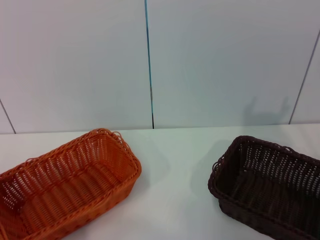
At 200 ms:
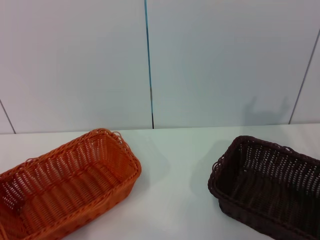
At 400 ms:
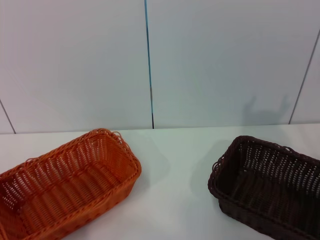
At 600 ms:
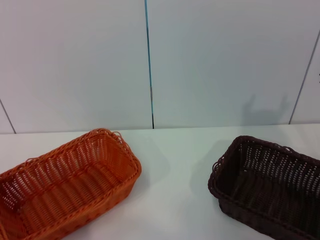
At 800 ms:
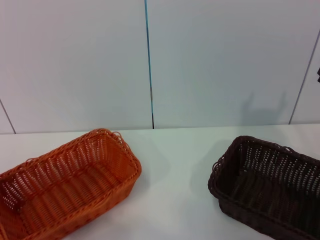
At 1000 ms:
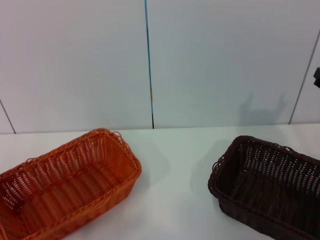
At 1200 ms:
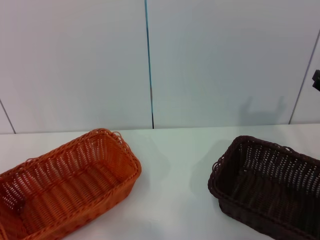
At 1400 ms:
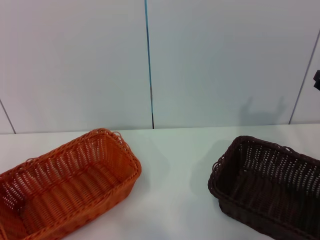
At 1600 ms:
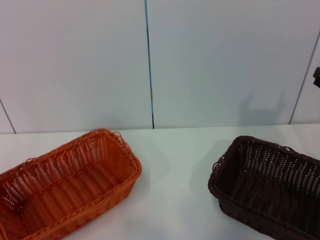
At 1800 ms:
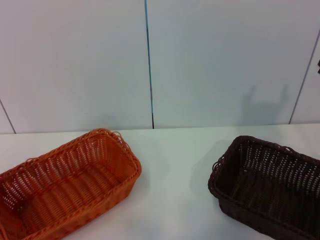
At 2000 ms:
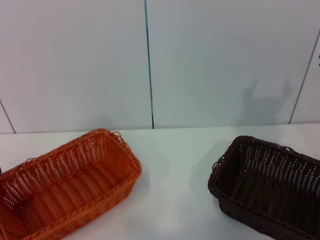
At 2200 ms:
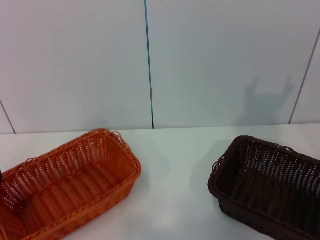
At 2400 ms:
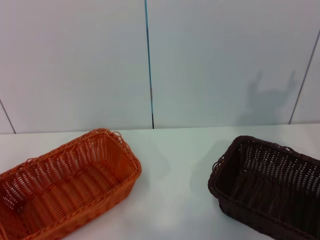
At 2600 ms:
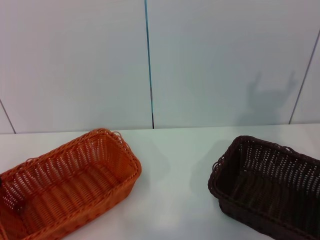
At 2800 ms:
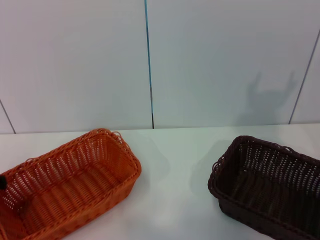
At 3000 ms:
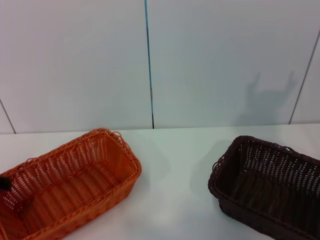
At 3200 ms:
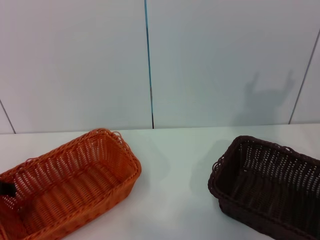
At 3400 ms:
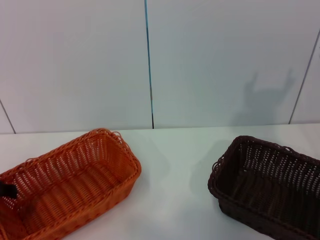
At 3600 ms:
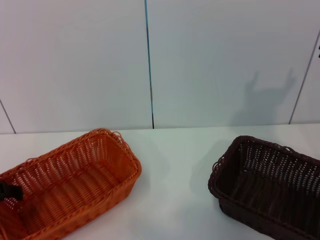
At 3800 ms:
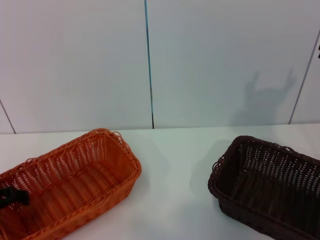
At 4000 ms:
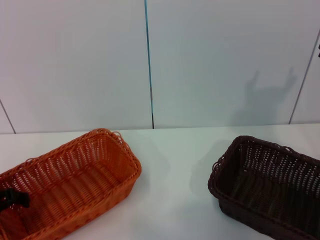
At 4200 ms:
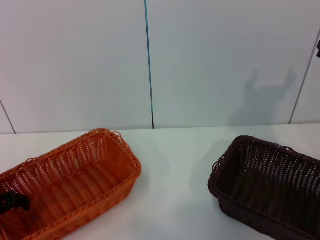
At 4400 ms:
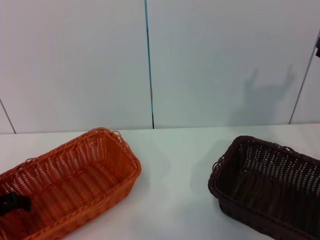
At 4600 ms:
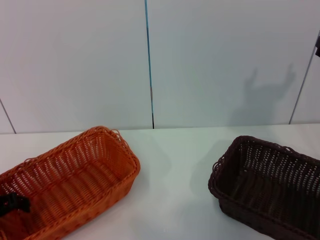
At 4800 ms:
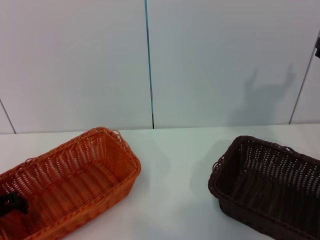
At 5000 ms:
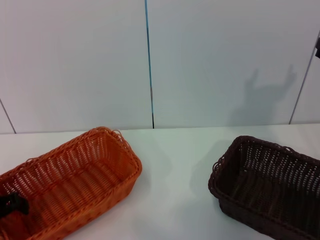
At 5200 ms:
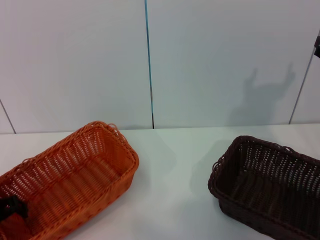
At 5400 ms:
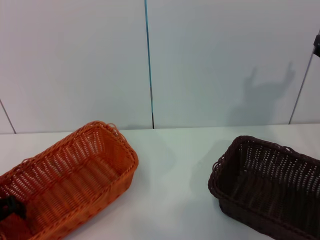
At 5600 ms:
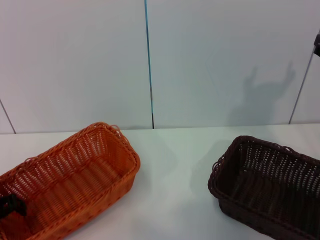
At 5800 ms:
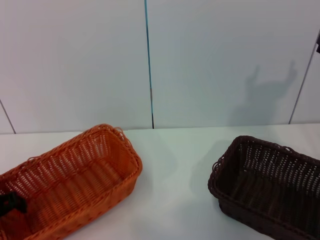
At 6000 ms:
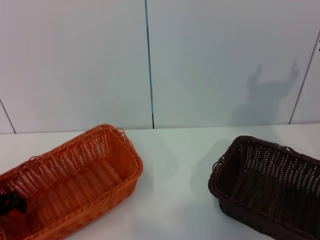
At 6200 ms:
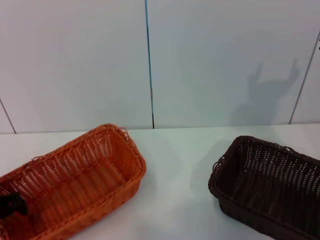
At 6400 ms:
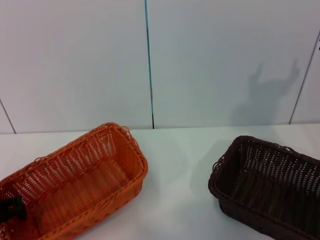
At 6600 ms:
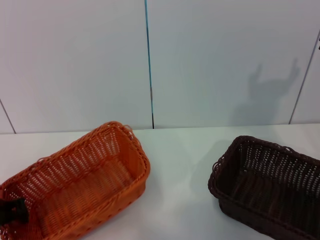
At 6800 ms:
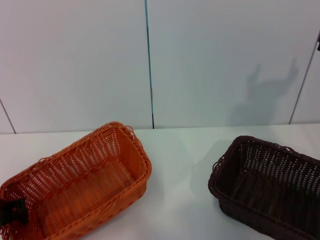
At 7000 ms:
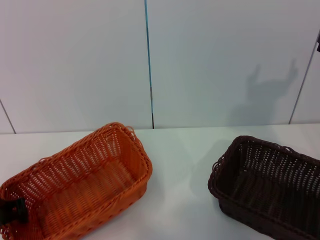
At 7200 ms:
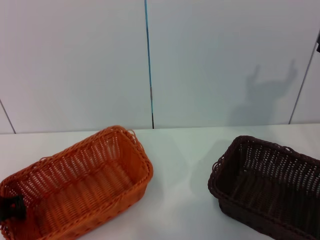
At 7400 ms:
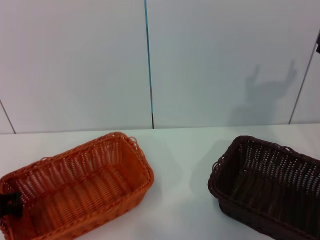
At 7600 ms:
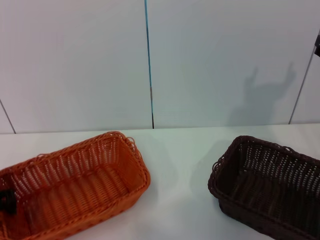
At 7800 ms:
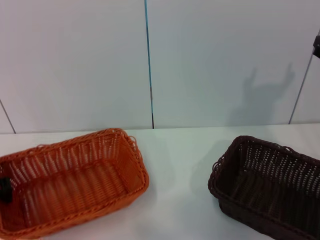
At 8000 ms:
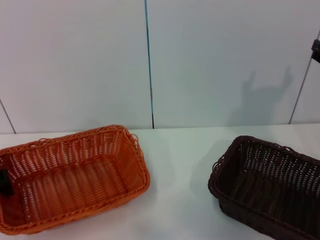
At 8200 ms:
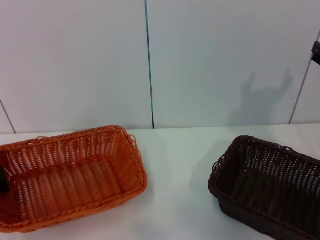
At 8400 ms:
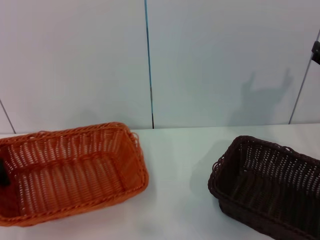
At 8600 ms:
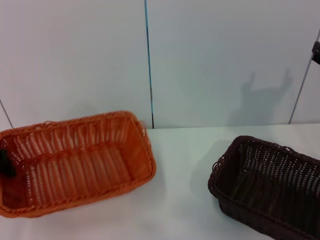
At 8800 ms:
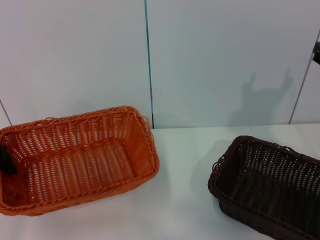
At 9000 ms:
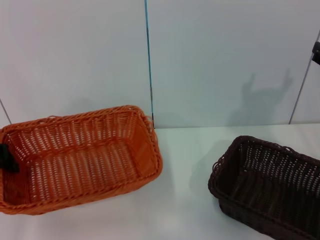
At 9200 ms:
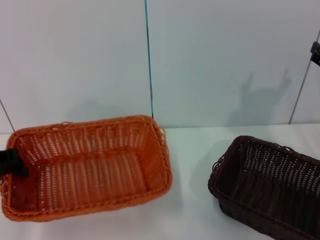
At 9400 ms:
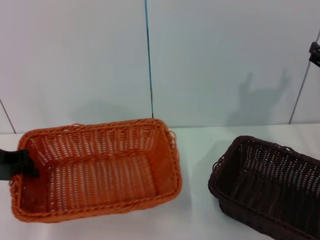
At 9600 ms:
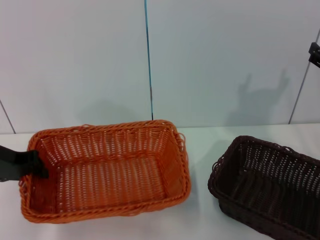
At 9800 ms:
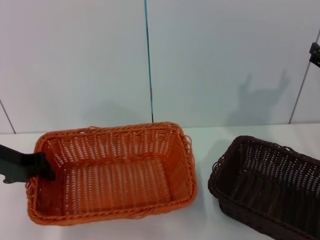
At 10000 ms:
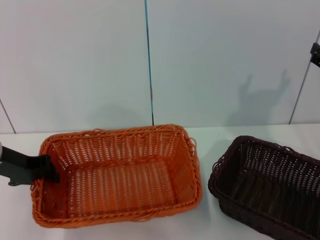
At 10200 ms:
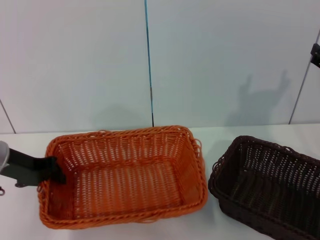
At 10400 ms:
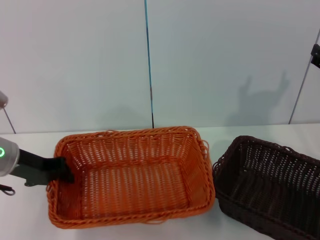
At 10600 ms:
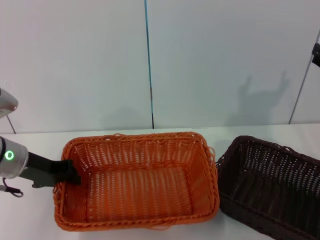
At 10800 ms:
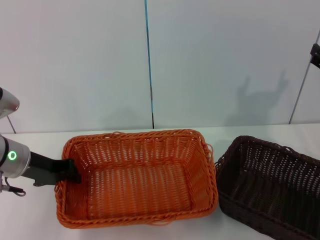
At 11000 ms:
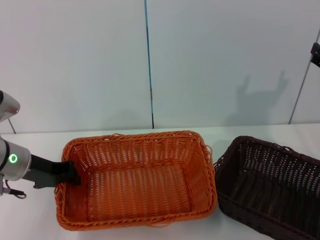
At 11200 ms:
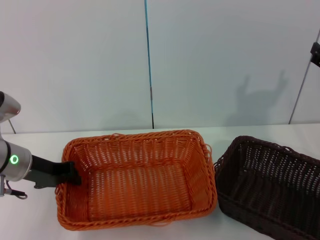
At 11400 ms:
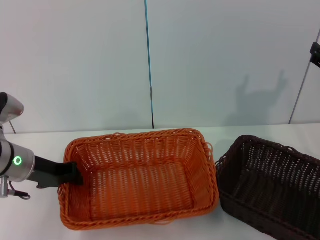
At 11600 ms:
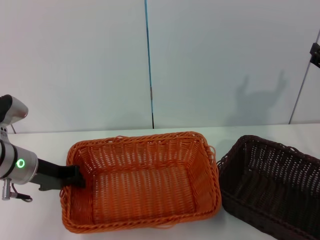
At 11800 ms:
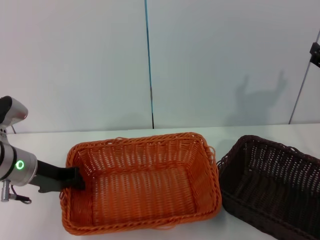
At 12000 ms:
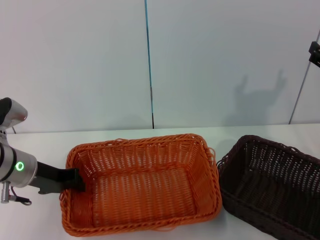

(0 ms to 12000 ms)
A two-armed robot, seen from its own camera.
Step, 0 ms - 5400 ms: Pick up the light basket with the left gripper.
4400 ms - 6000 ms: The left gripper closes.
6000 ms - 7600 ms: The left gripper closes up.
7600 ms - 9000 ms: The left gripper goes approximately 5 cm upward.
9000 ms - 10400 ms: The left gripper heads to the right, covering roughly 10 cm.
10400 ms - 12000 ms: The grippers make only small movements.

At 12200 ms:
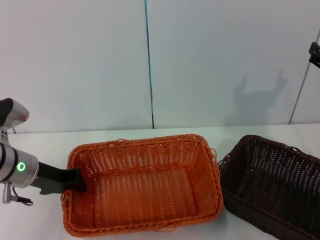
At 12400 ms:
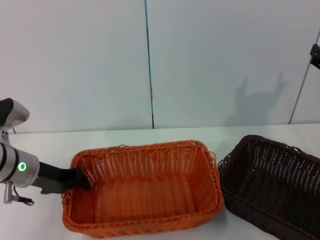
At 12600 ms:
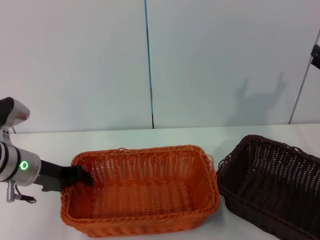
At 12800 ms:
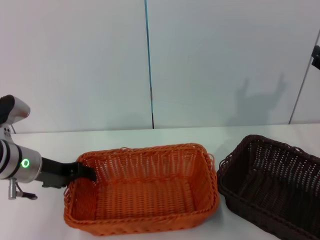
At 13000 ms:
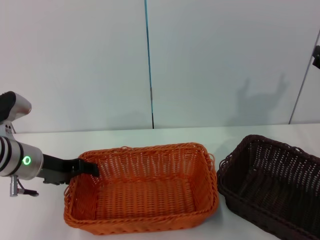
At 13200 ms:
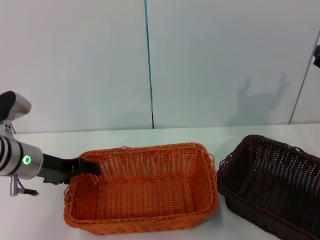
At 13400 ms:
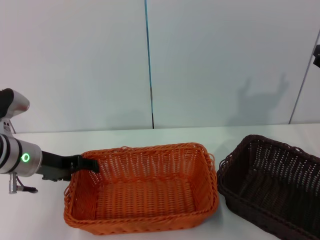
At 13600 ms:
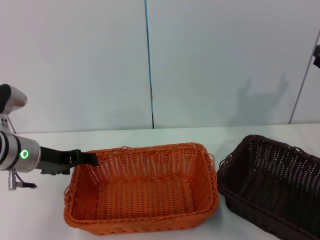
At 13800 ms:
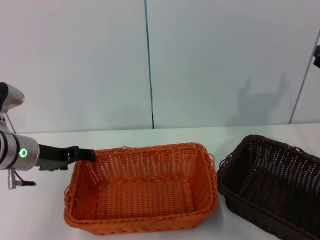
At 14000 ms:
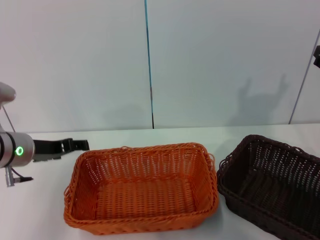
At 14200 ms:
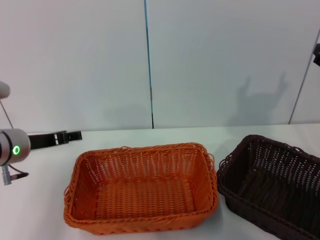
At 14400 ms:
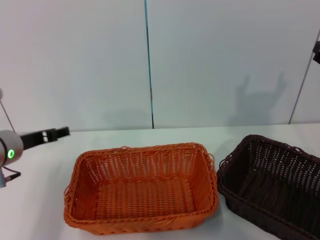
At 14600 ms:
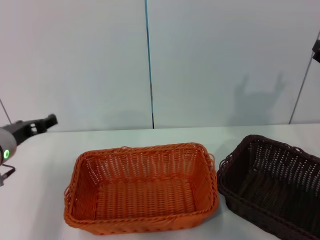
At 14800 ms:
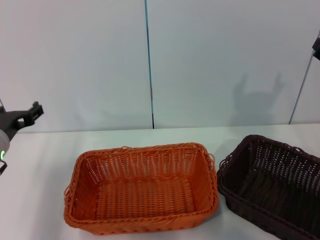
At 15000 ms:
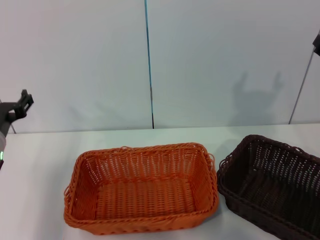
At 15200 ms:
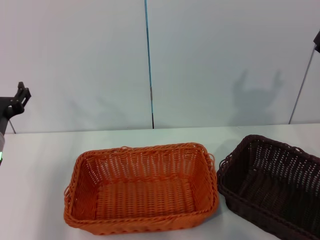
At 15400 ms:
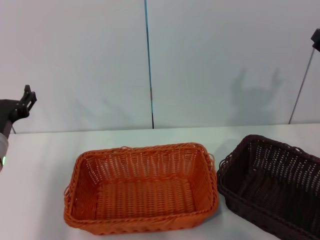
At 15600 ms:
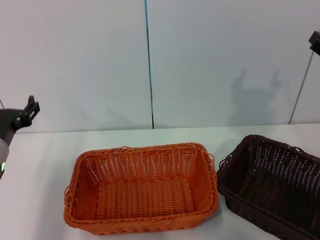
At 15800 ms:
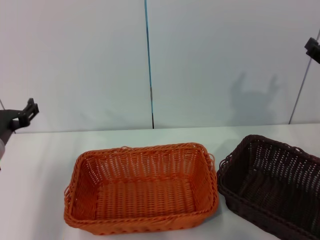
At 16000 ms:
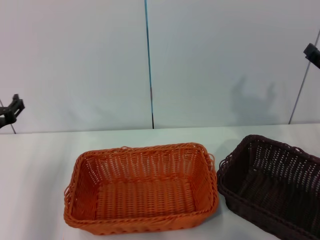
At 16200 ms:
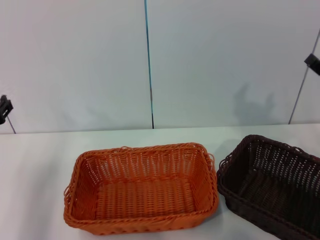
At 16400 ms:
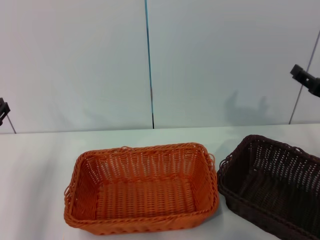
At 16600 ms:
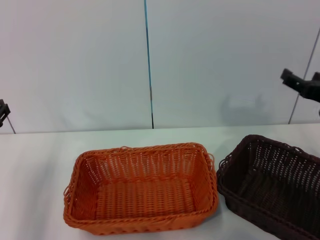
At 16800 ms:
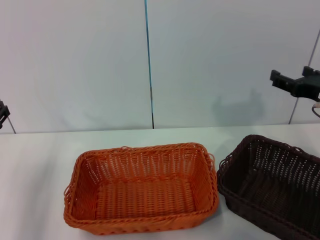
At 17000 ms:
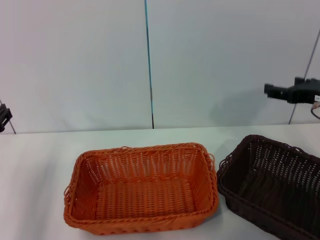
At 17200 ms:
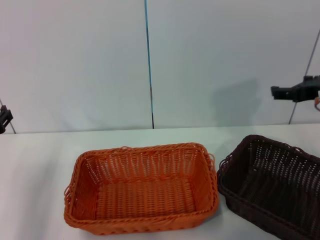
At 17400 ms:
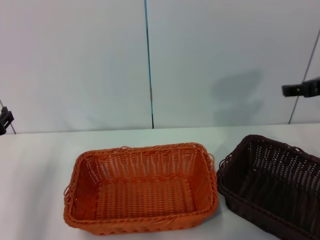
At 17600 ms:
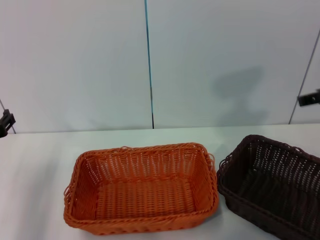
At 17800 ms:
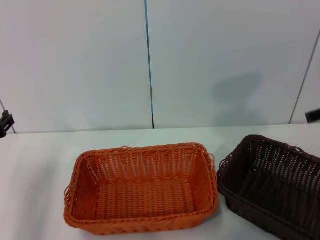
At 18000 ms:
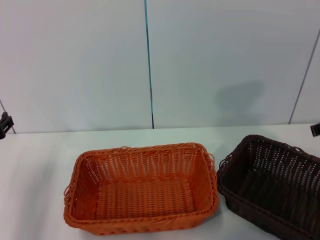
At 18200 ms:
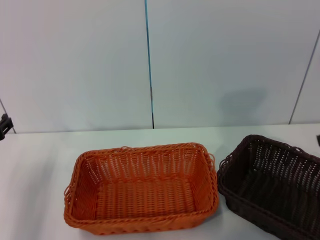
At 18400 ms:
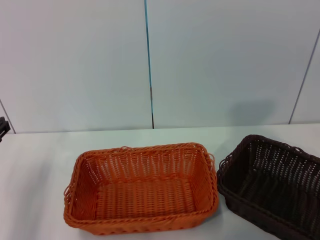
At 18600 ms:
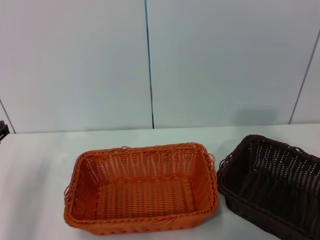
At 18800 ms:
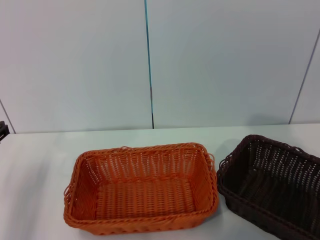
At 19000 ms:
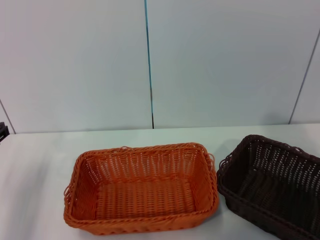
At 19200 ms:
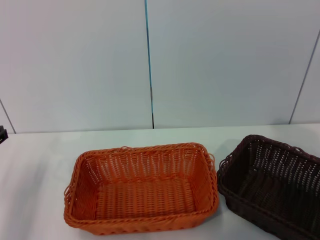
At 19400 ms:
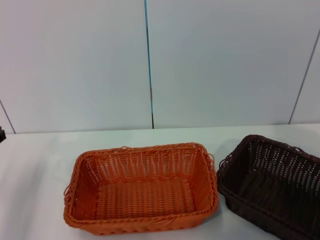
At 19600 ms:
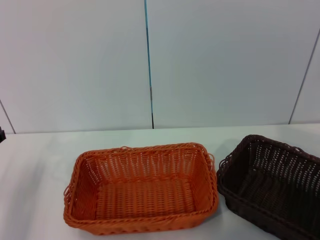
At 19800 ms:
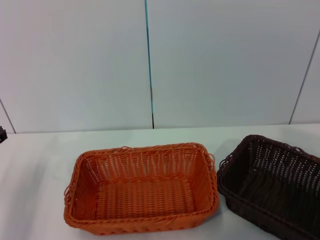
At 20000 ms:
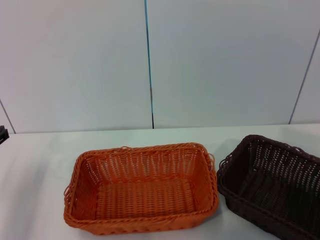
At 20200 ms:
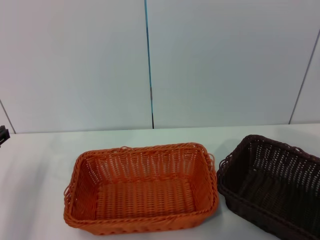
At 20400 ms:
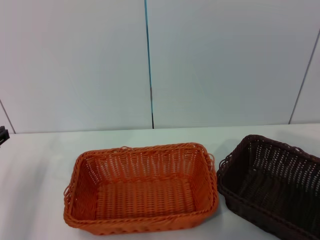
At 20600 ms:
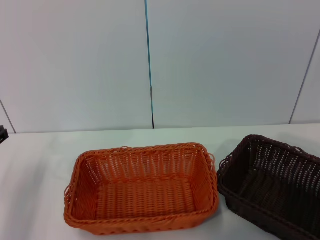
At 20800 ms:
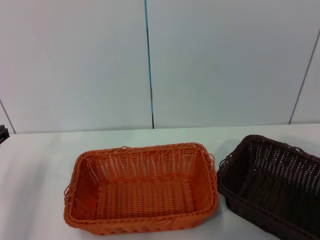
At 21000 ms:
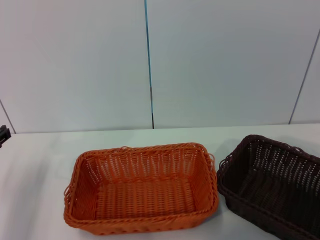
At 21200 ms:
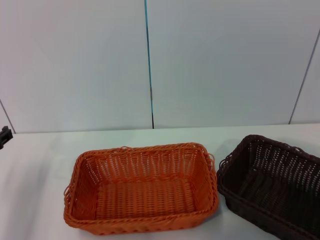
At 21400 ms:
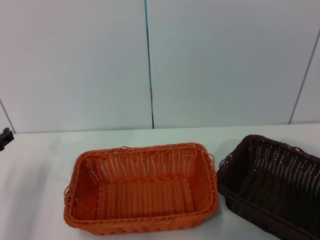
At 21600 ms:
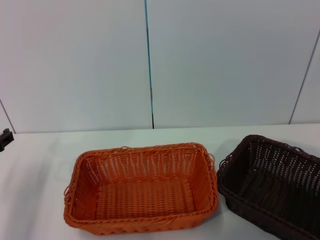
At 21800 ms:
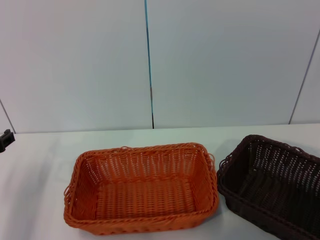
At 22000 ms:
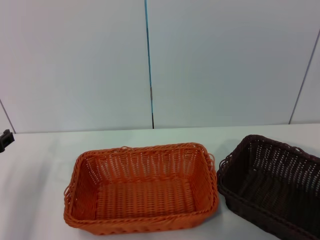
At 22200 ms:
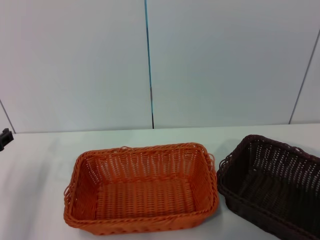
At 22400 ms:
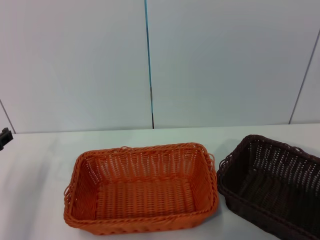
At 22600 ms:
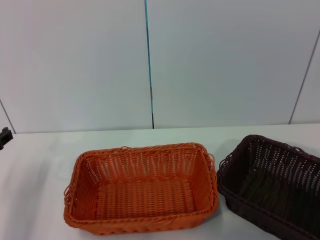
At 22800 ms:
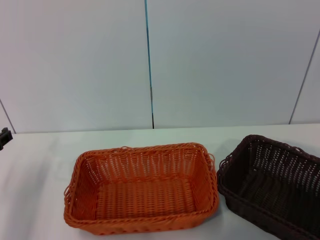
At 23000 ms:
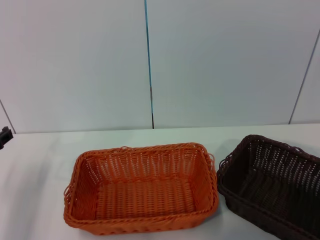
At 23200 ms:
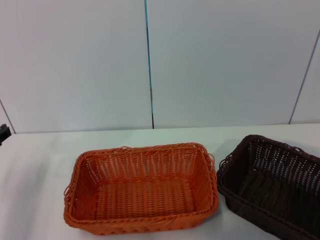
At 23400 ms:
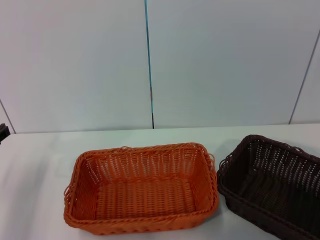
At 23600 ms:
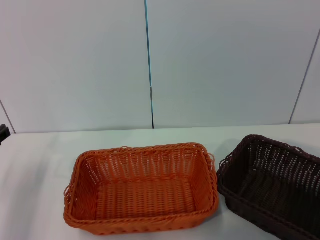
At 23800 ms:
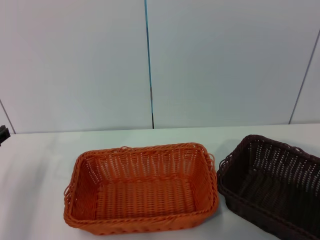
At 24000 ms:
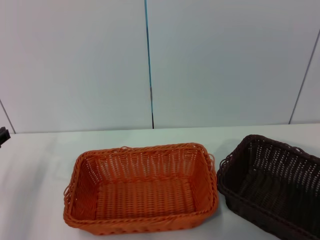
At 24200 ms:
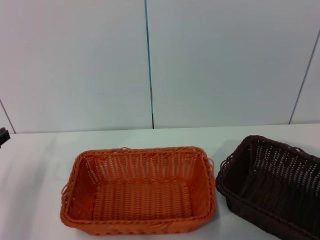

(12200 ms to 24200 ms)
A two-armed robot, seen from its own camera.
12200 ms - 13800 ms: The left gripper opens its fingers.
16600 ms - 18200 ms: The right gripper travels upward by some 10 cm.
21200 ms - 22600 ms: The two grippers keep their place.
22600 ms - 24200 ms: The right gripper closes up.
